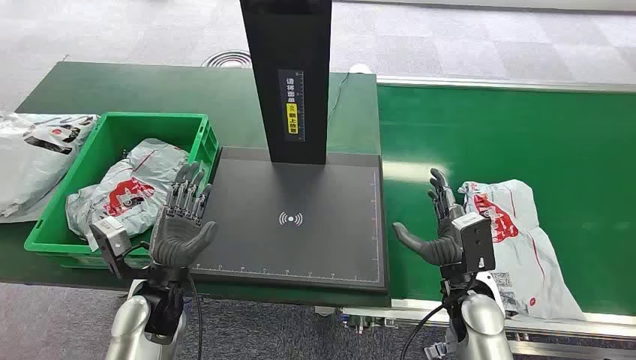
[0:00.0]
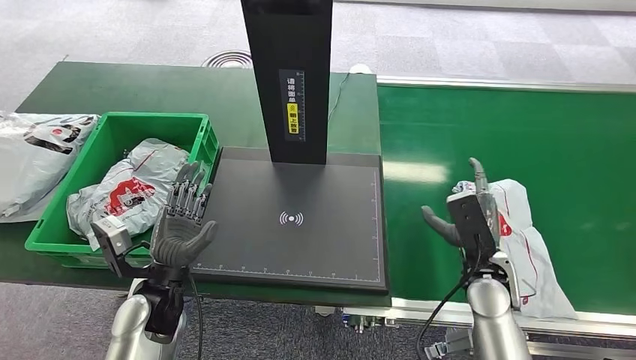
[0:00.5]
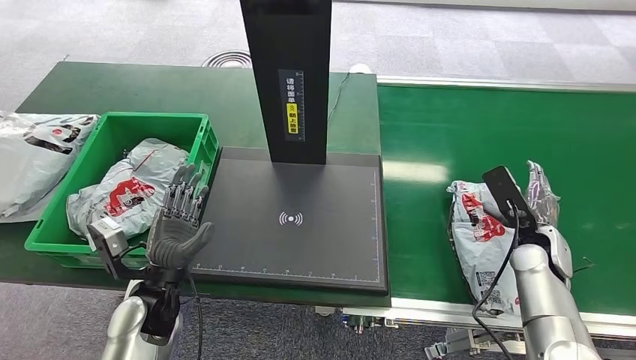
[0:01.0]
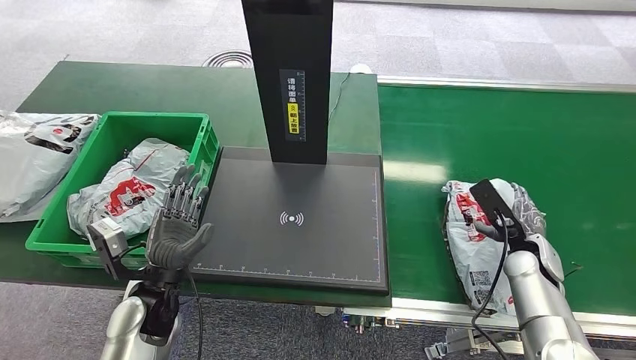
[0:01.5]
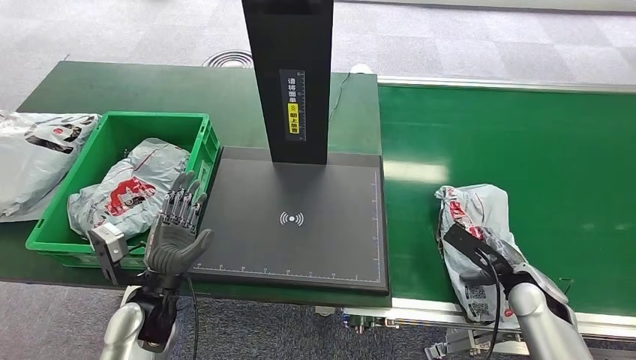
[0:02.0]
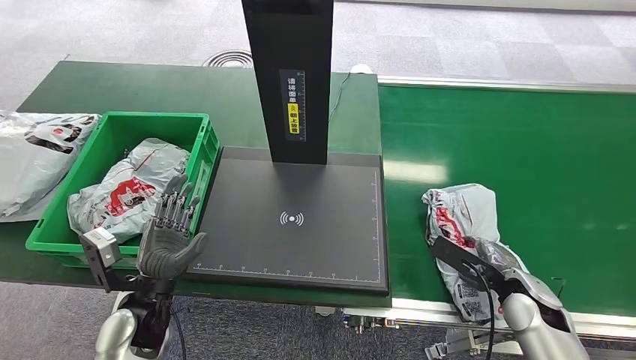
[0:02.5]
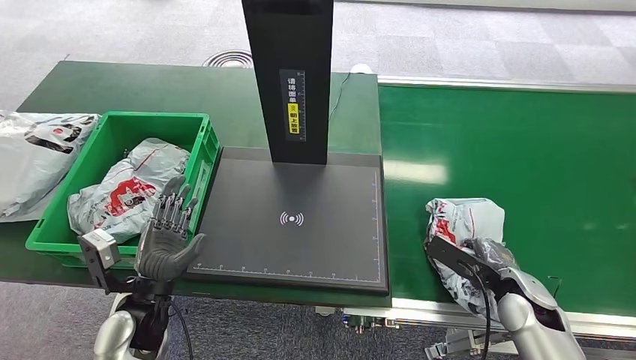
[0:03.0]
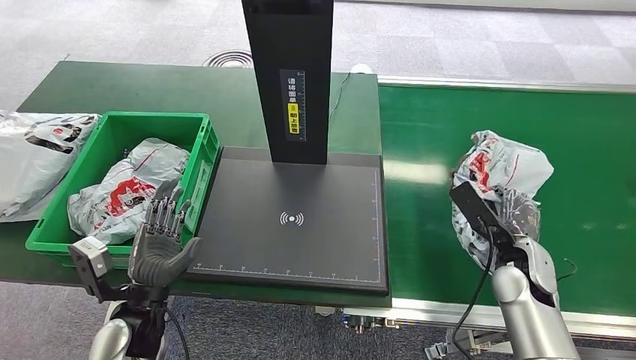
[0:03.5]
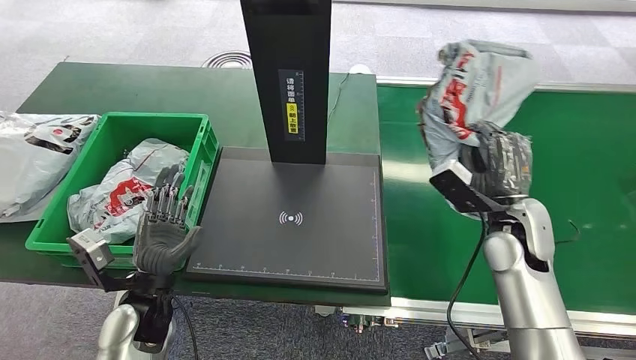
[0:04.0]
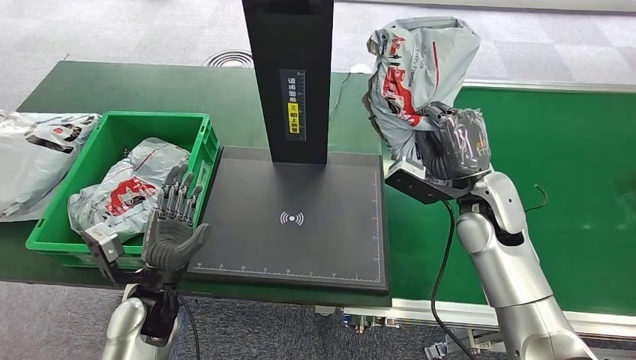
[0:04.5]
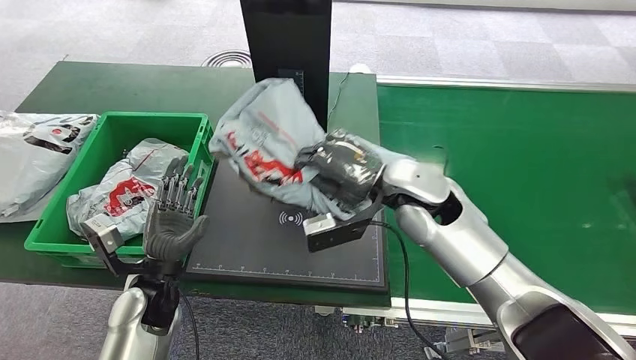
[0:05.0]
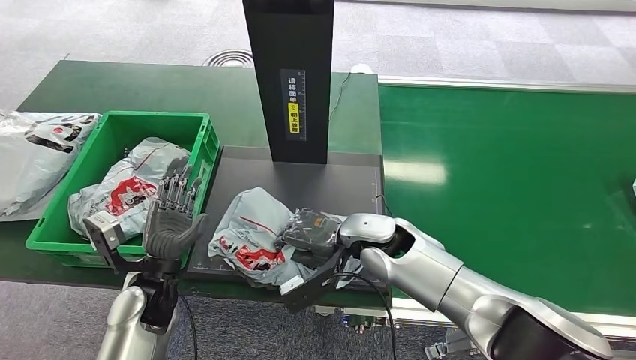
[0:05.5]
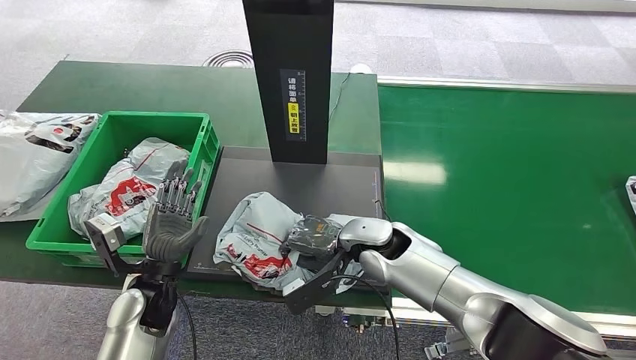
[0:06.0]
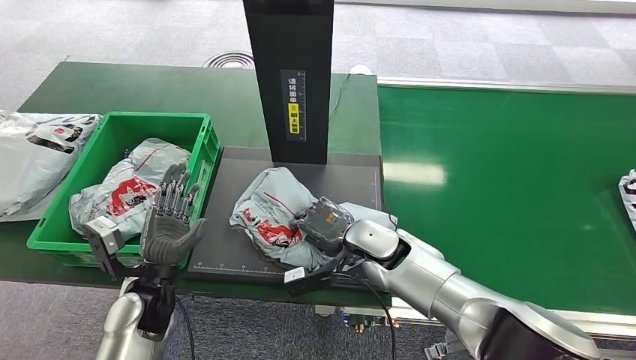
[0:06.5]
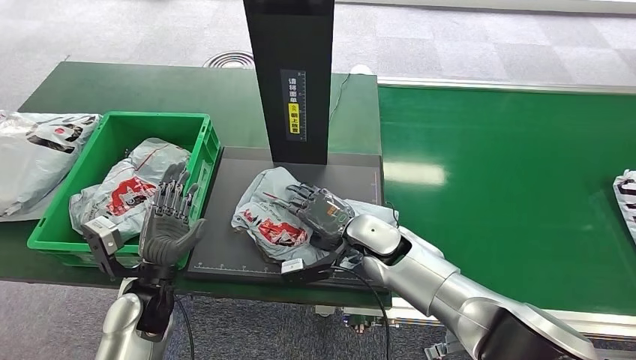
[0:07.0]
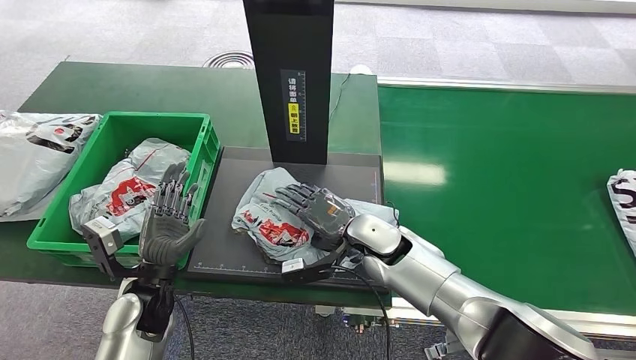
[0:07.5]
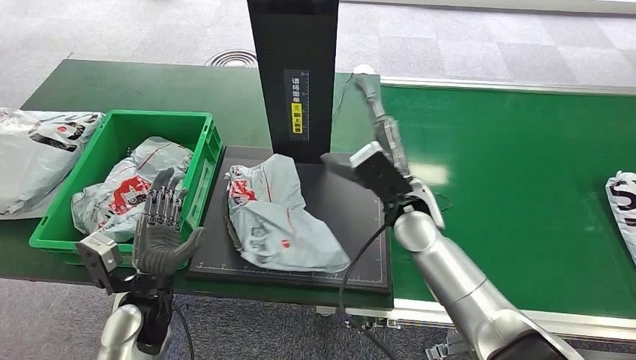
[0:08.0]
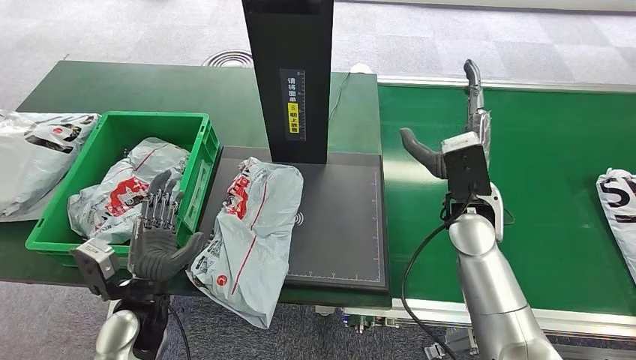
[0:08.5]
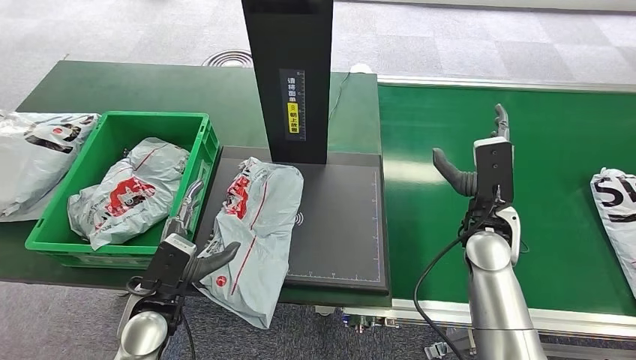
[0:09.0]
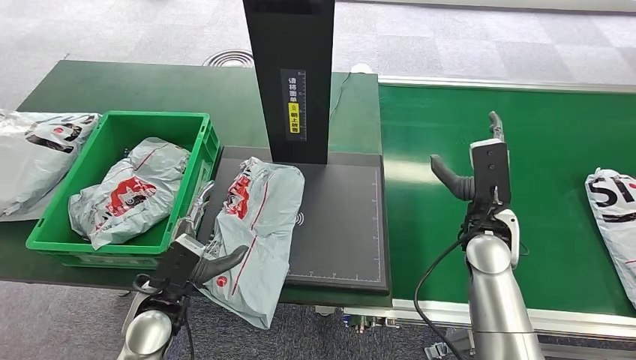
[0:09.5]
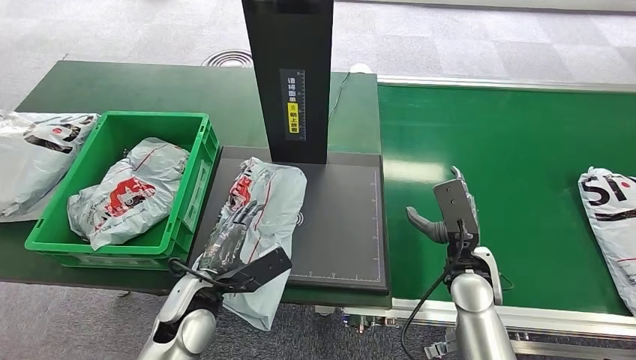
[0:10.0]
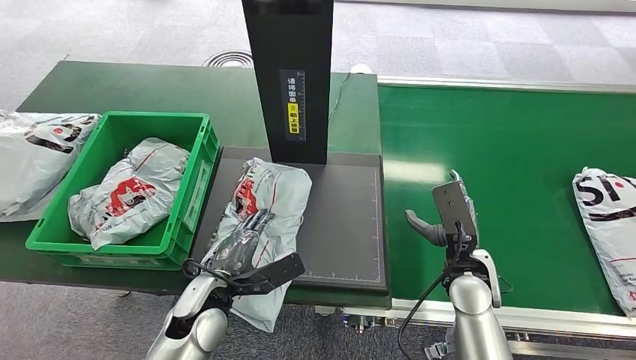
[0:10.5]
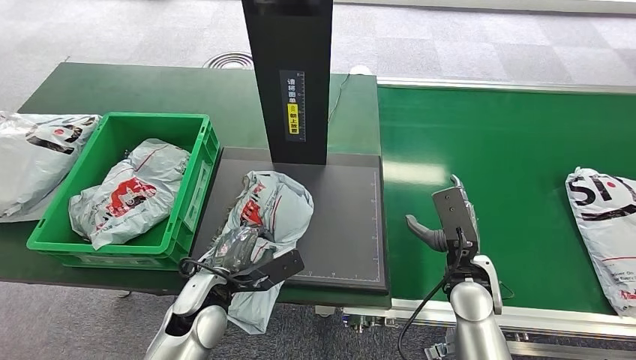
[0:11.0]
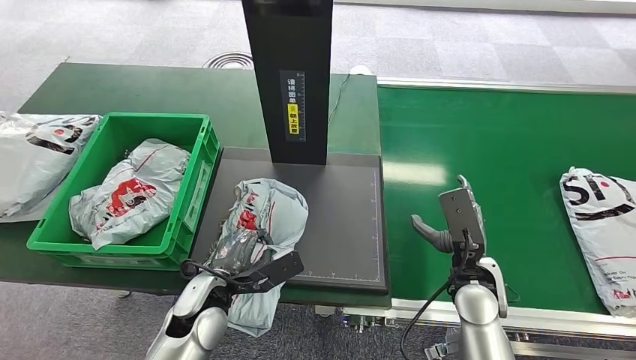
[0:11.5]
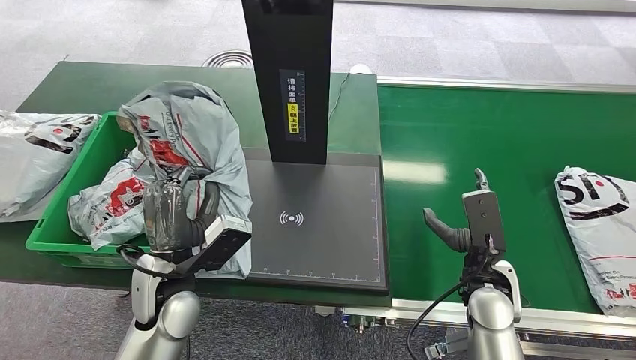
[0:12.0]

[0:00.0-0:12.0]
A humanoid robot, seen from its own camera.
Step, 0:00.0 to 0:03.5: Pick up the package from the conveyor belt.
Step, 0:04.5 to 0:08.5: Place the package onto the inbound machine.
0:02.0 to 0:04.0: The right hand is displaced upward, to the left and forward by about 20 cm.

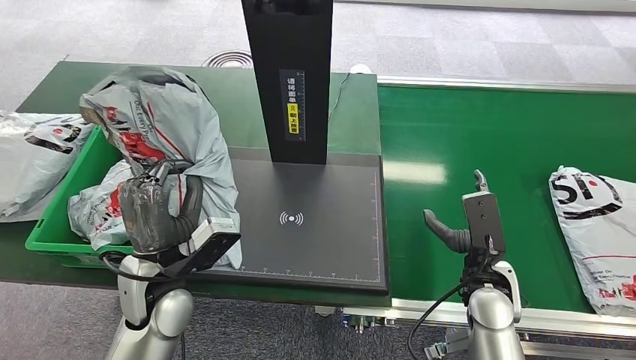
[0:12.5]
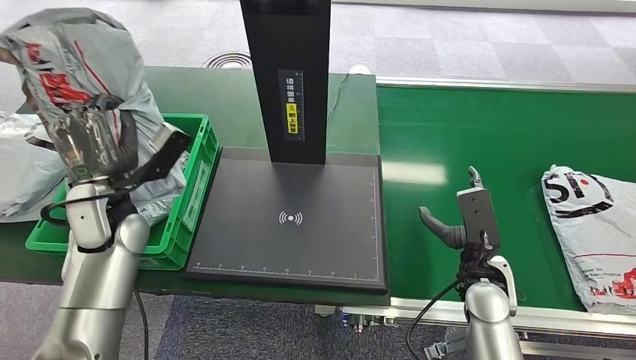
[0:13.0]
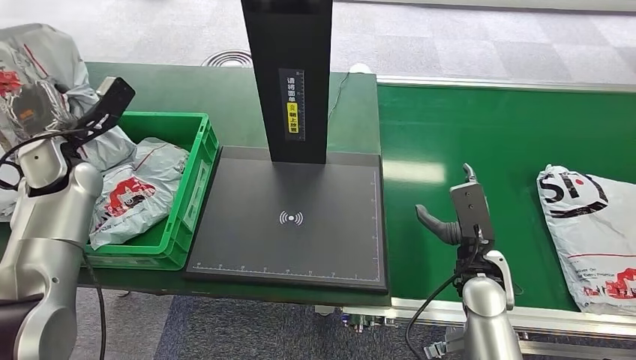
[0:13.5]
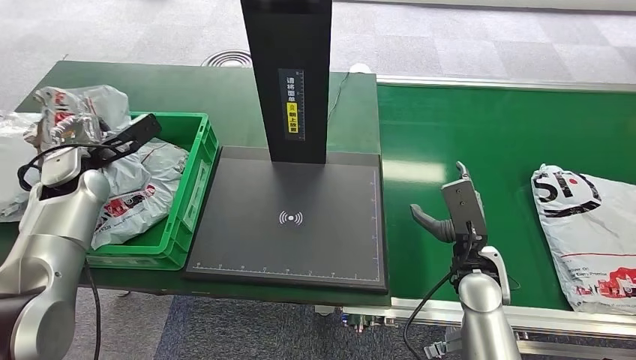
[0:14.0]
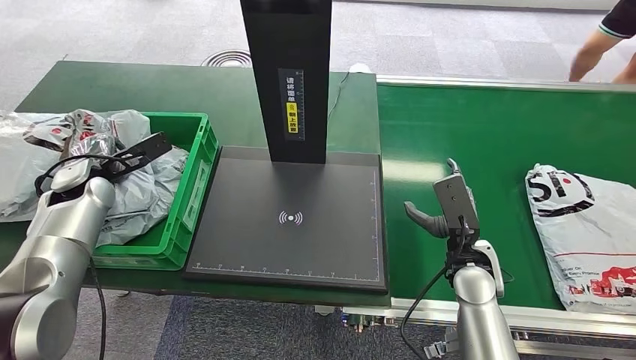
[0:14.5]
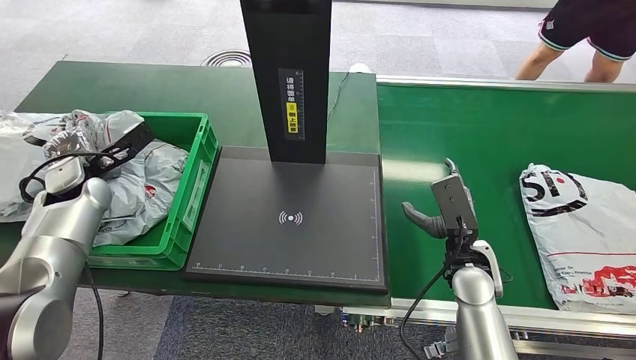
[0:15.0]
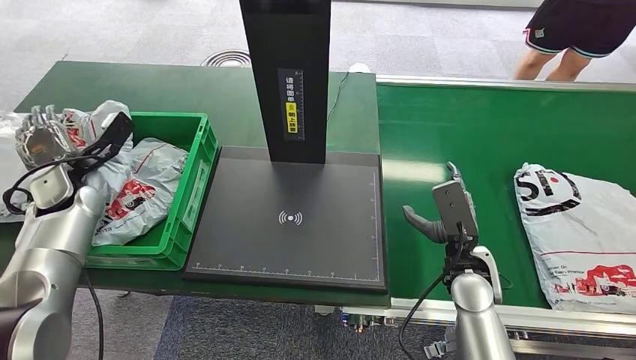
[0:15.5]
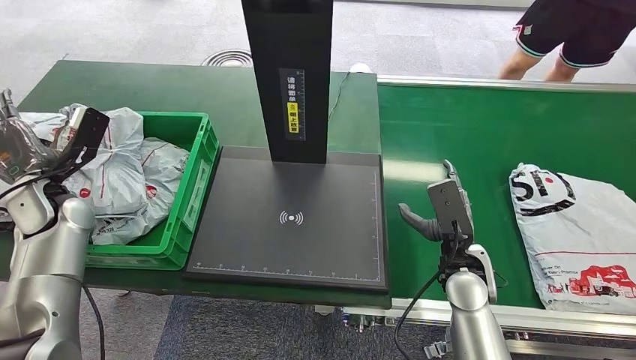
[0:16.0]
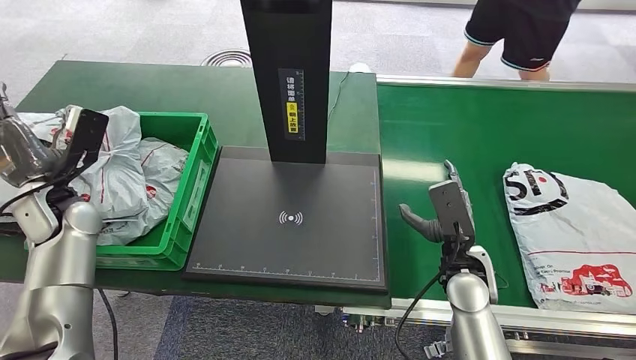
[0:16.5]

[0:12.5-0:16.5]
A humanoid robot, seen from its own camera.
Step, 0:13.0 to 0:16.5: Place the package into the parcel locker.
